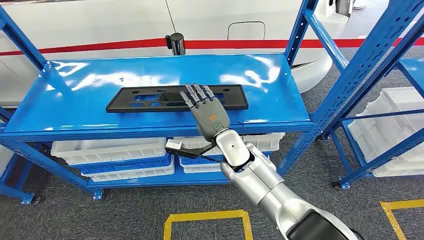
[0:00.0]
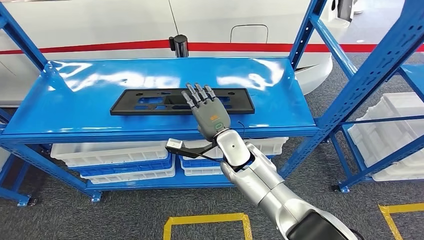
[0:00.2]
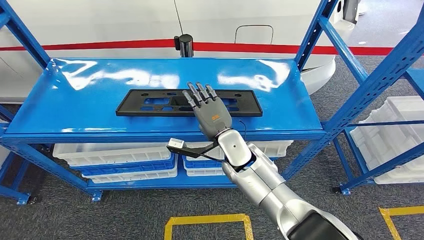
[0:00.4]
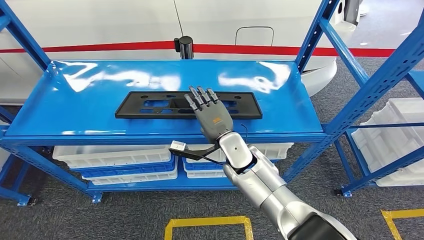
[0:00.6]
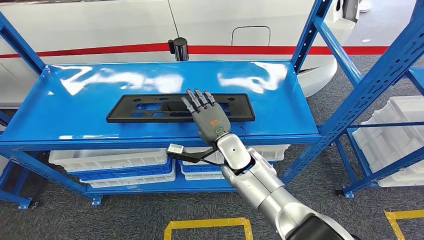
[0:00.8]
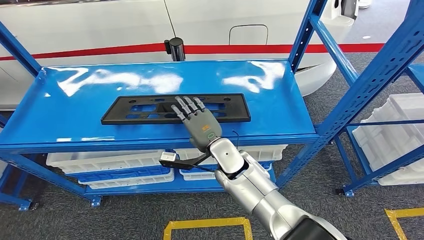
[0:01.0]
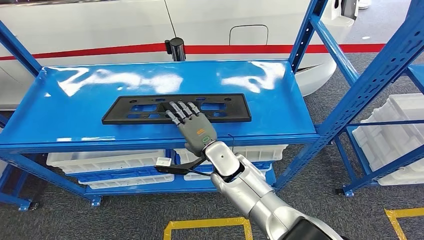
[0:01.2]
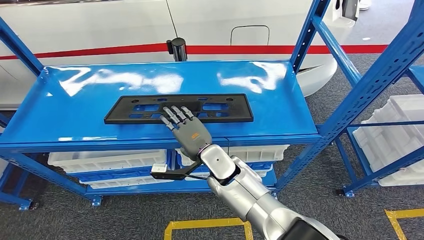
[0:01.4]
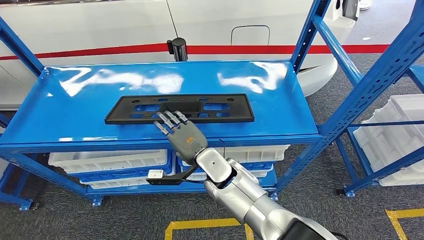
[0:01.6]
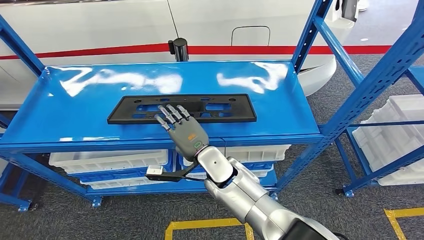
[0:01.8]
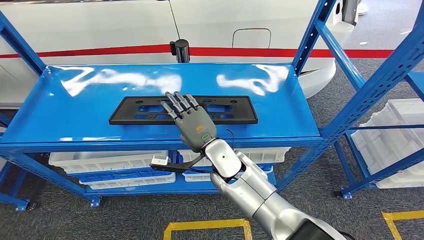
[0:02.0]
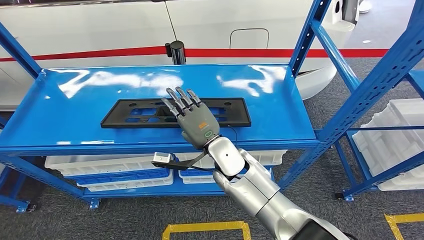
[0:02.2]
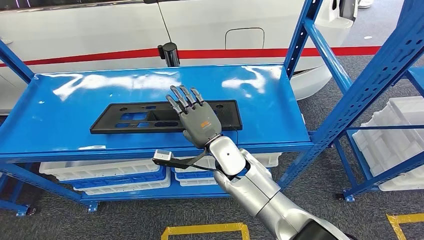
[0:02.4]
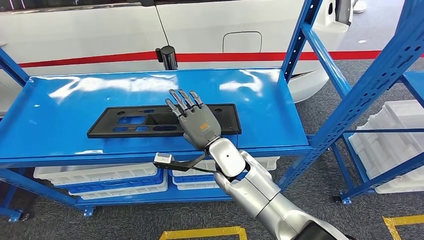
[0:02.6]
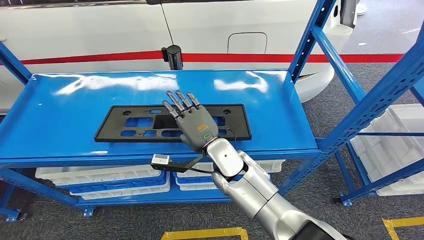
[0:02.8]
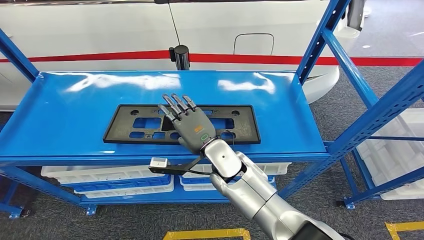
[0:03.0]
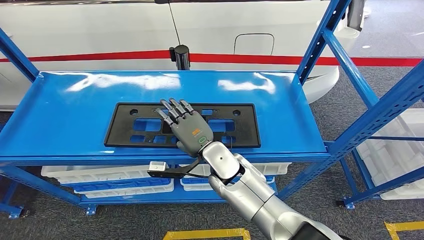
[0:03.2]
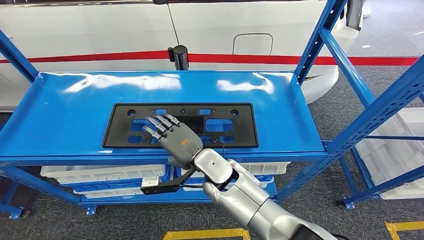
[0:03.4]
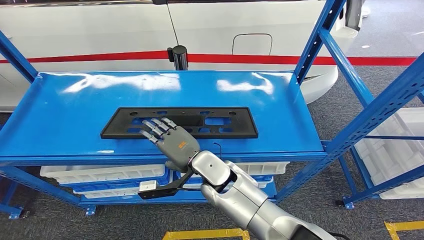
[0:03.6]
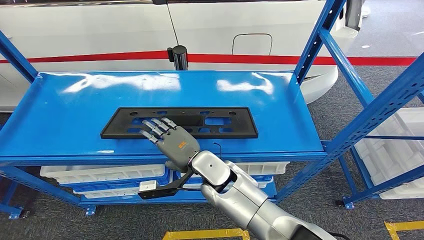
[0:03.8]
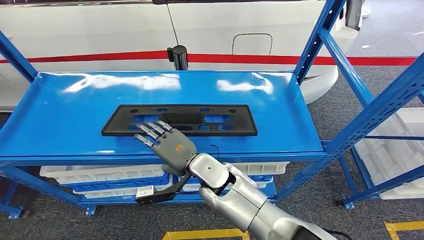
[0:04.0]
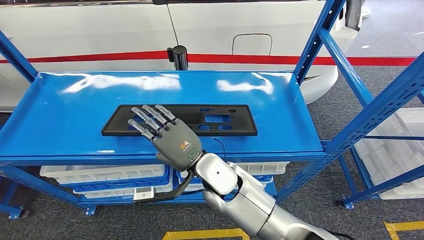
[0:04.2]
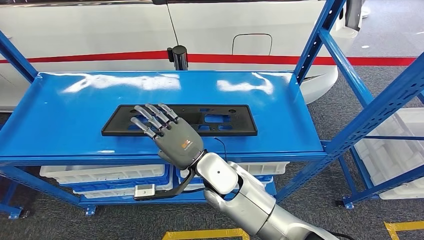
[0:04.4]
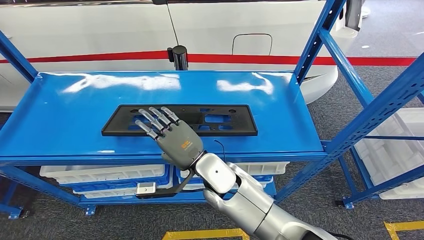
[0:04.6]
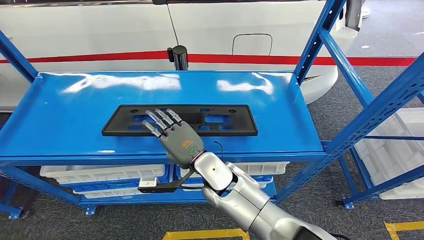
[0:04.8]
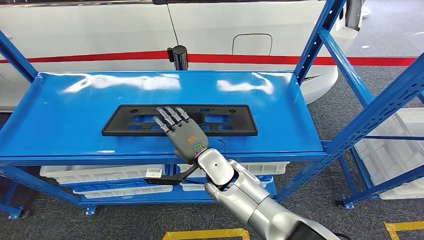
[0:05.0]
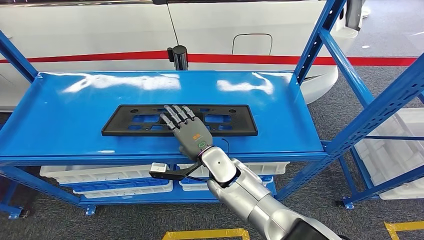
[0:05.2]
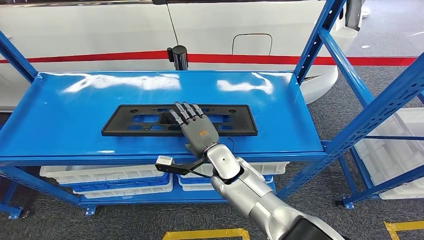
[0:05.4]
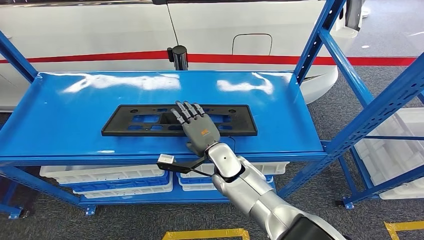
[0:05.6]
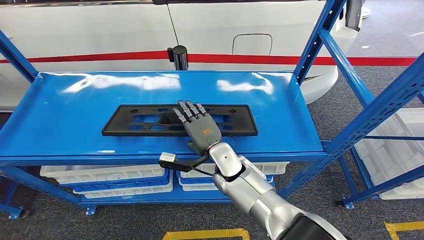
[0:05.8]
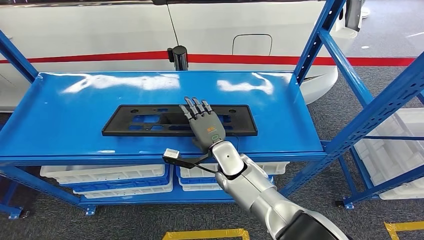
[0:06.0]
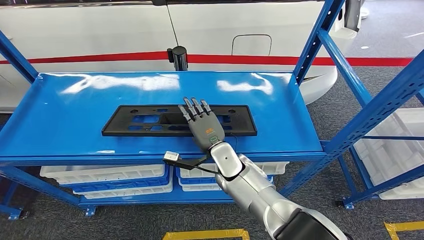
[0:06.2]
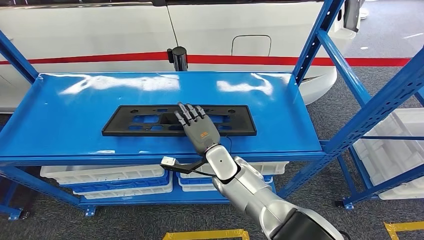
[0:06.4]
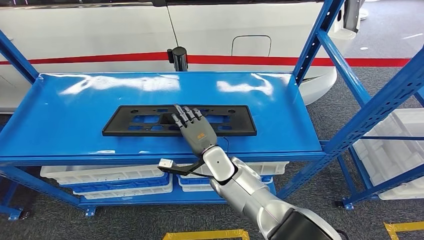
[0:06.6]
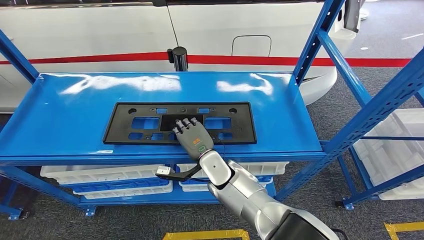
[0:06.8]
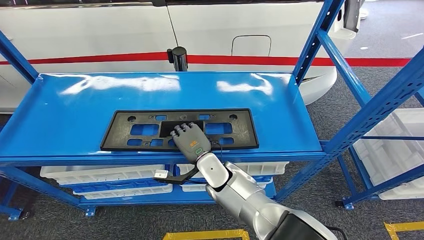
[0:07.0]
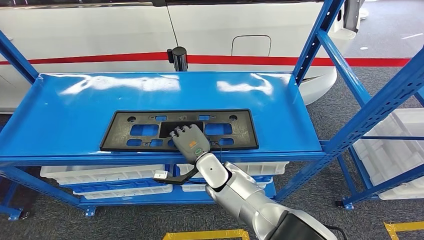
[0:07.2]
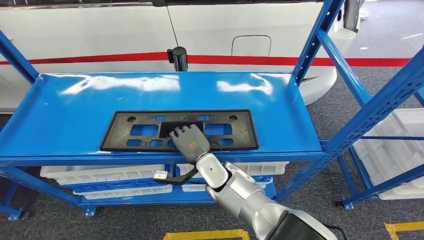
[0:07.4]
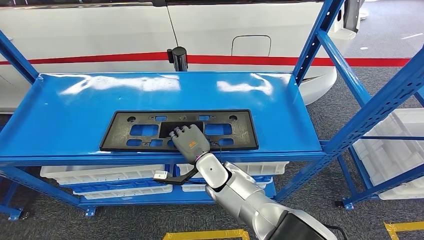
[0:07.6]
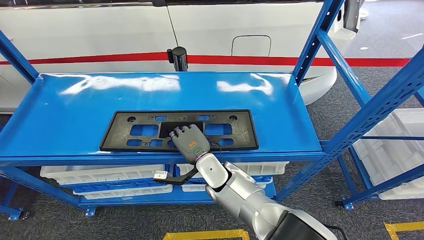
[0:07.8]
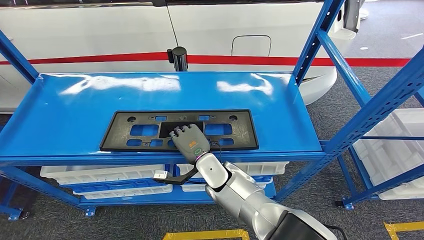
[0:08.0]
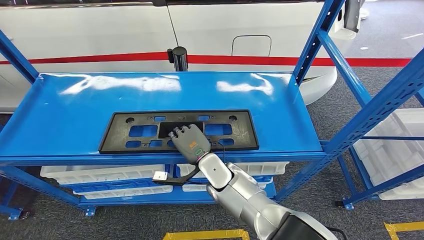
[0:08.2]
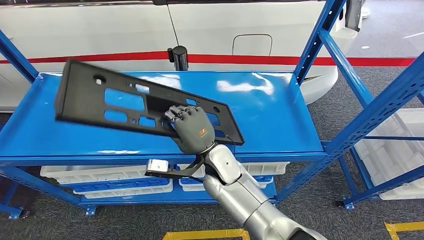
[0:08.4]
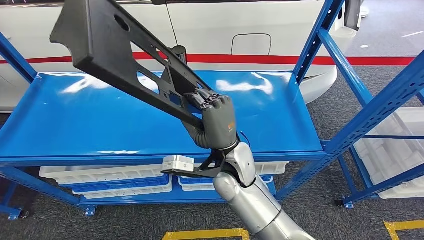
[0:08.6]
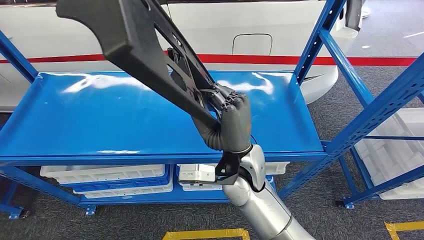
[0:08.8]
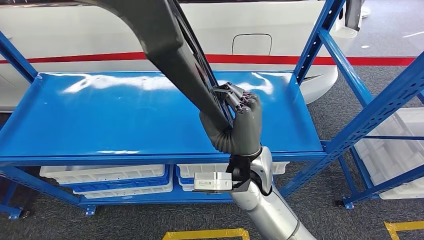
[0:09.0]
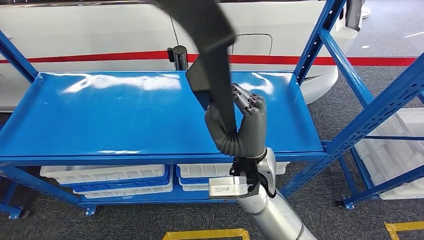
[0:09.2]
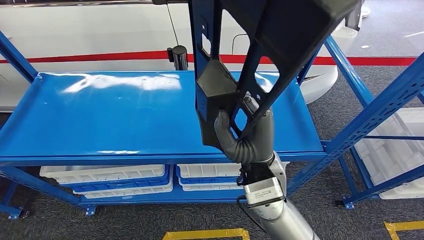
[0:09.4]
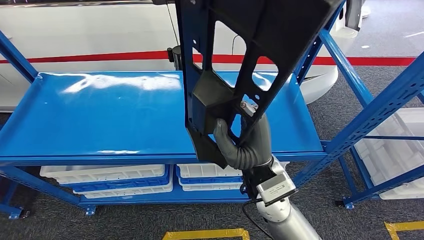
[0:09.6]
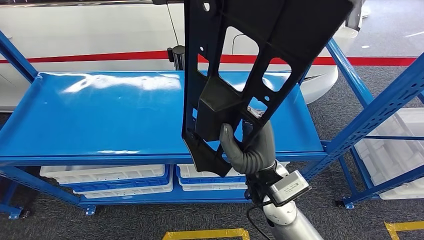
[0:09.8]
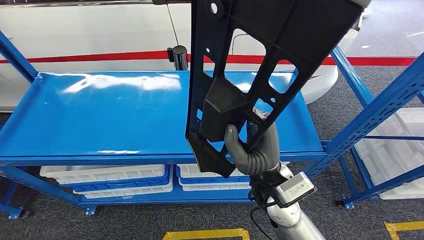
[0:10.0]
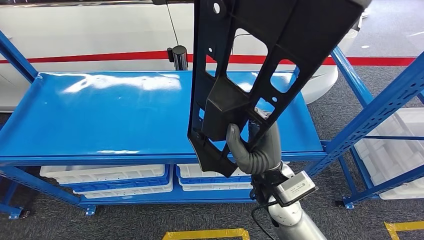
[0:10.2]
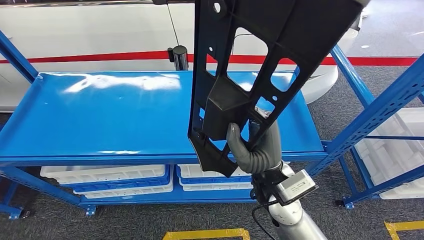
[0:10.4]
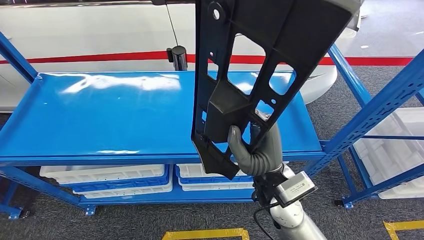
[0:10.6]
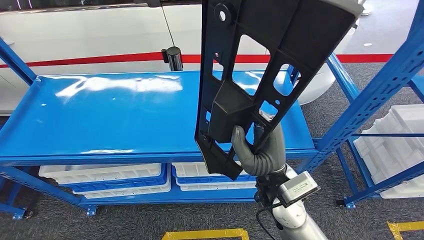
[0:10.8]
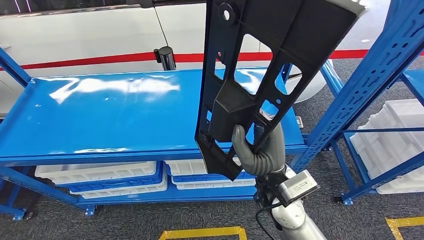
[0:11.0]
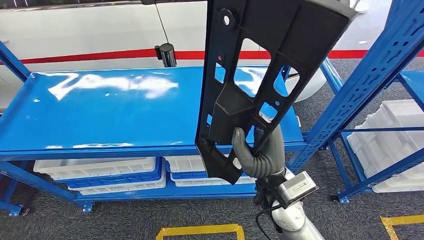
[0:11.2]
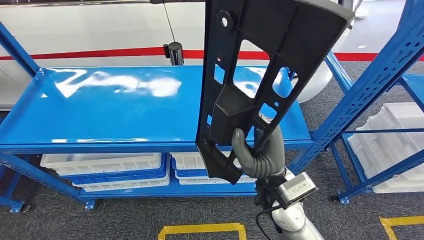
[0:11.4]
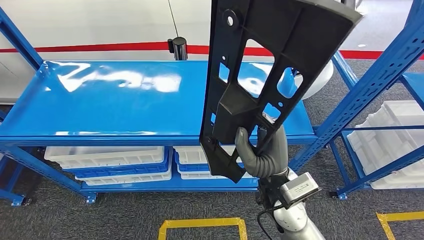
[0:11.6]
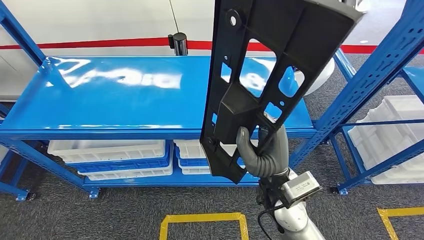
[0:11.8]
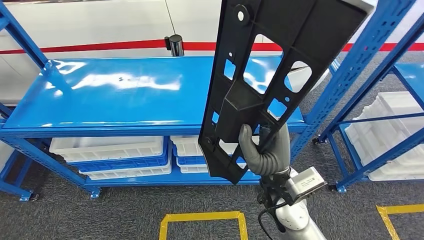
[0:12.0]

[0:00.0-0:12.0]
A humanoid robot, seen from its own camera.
Step, 0:00.0 to 0:08.6: Pick up the large material from the shelf.
0:03.0 to 0:04.4: The right hand shifts by approximately 5 cm.
0:04.4 to 0:06.0: The right hand travels downward and forward by about 10 cm.
0:06.0 to 0:07.6: The hands stay close to where they were, moving slightly.

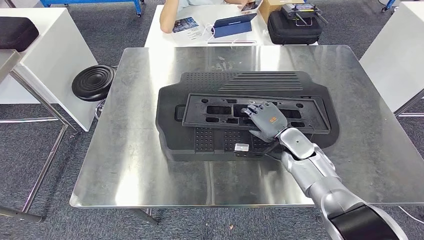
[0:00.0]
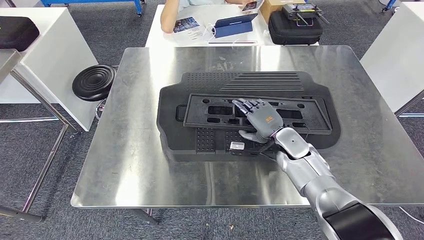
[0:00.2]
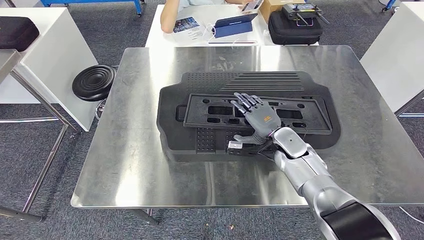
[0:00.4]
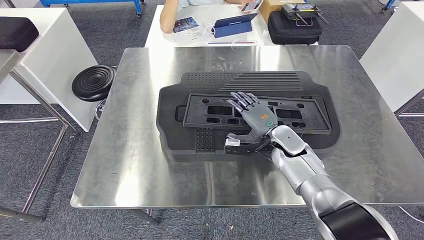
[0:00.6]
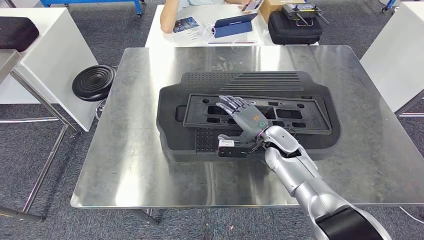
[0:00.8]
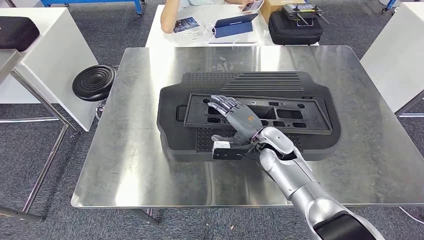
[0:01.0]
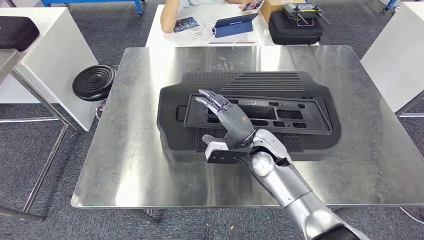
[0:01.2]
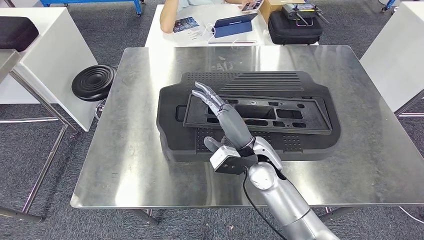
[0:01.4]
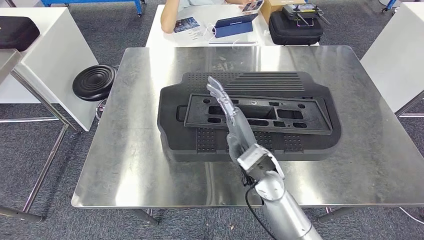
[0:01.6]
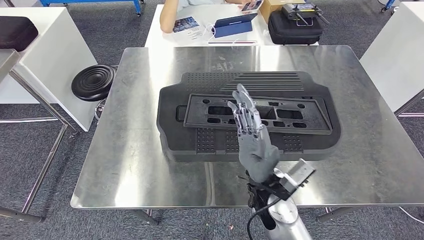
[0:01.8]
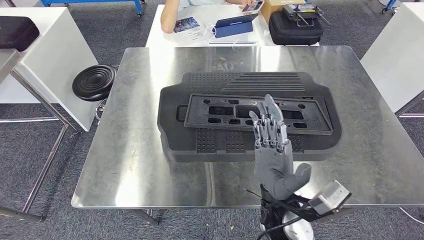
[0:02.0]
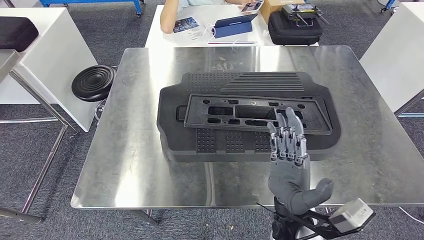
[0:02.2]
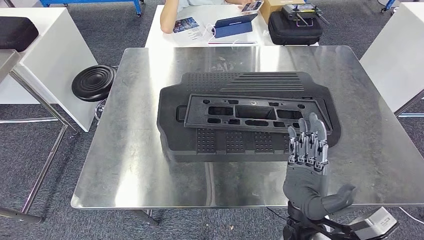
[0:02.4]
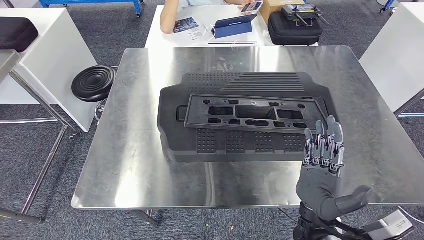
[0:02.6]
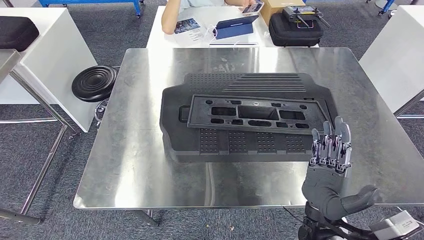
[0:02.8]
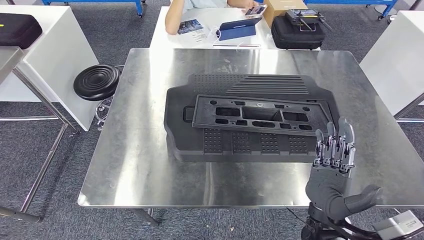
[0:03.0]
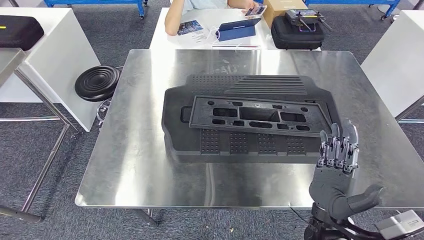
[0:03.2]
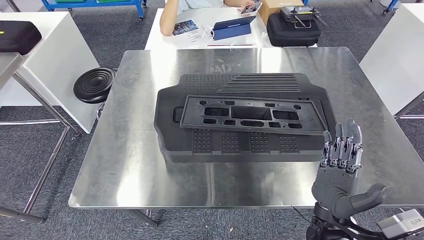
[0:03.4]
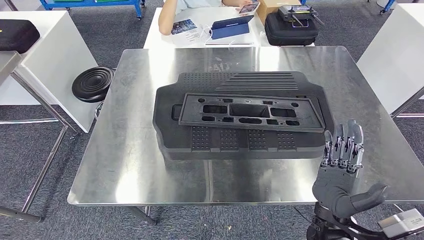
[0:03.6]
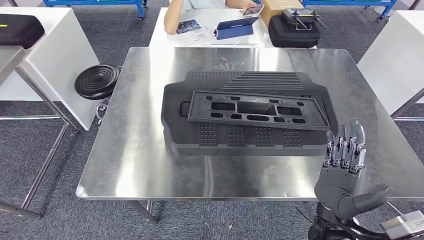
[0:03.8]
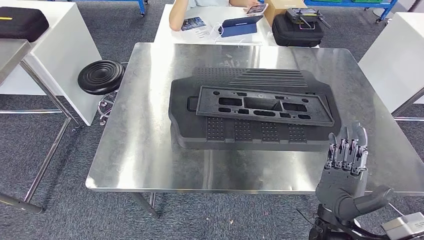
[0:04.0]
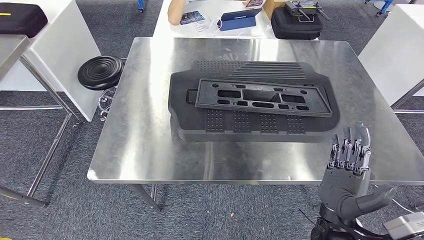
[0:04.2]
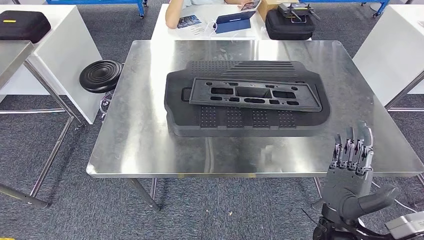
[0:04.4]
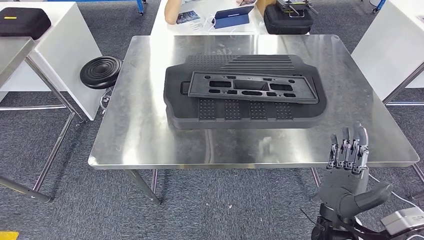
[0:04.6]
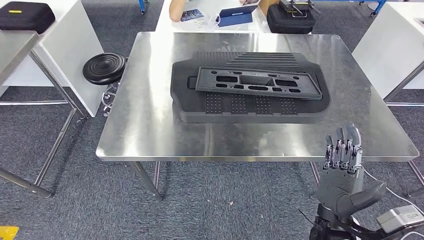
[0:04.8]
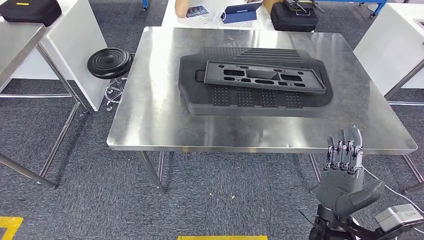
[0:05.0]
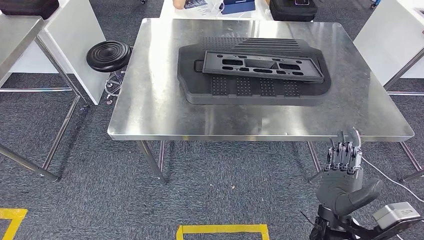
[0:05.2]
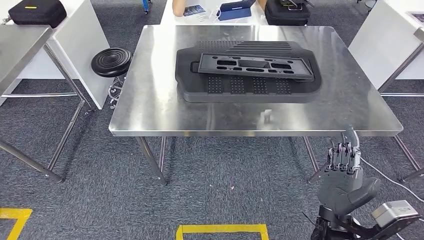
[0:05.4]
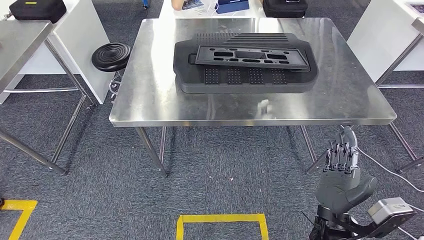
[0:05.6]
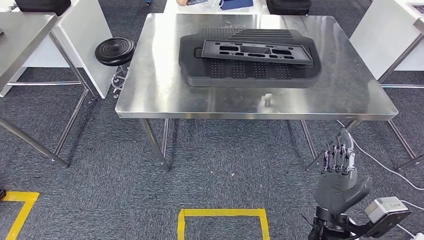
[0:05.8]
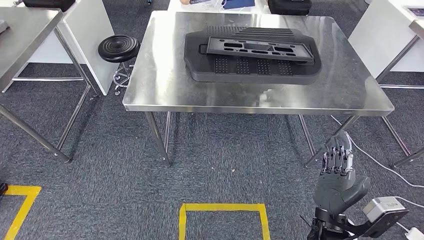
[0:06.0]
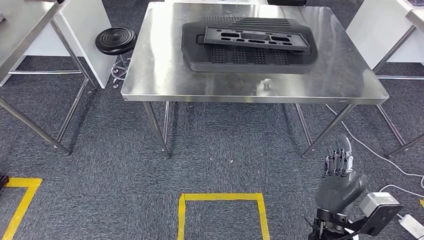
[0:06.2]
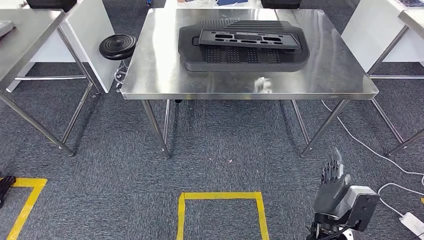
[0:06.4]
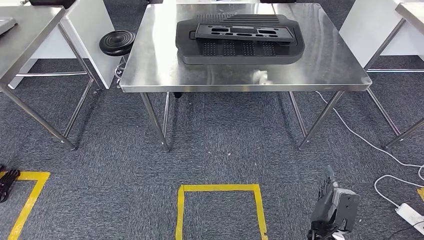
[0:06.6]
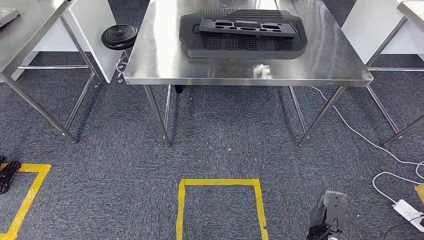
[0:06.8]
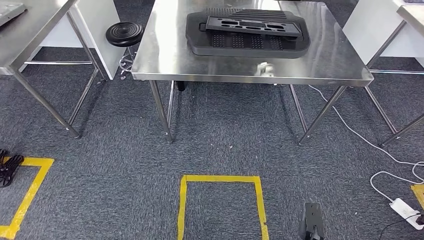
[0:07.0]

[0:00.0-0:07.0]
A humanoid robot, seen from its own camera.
0:00.0 to 0:01.4: The right hand travels to the left, backward and upward by some 15 cm.
0:01.4 to 0:02.8: The right hand goes roughly 20 cm backward and to the right.
